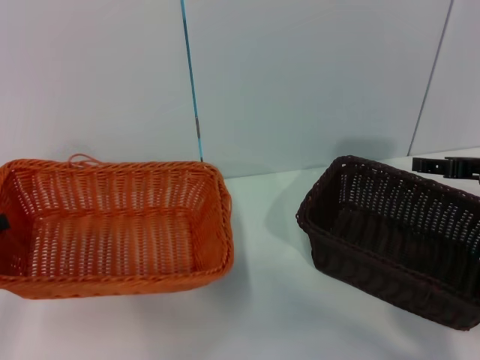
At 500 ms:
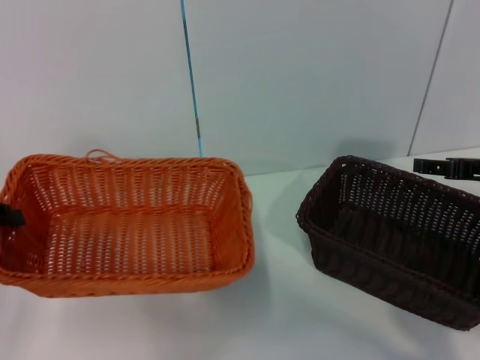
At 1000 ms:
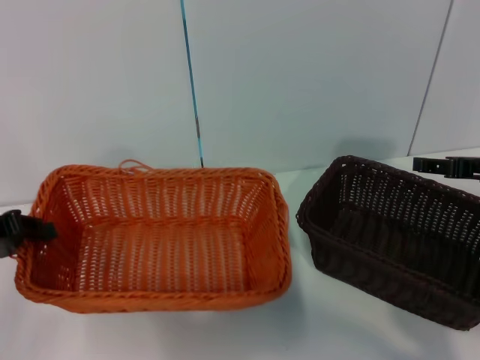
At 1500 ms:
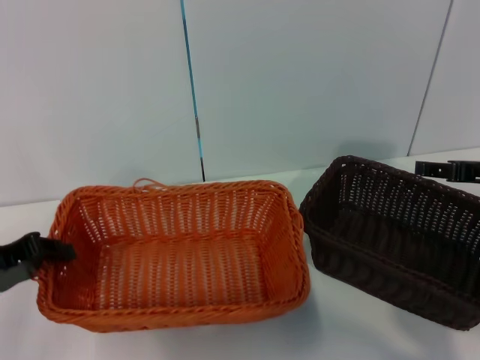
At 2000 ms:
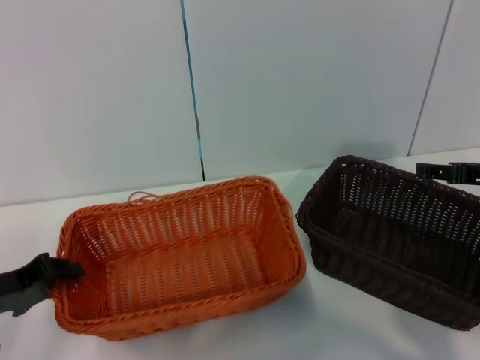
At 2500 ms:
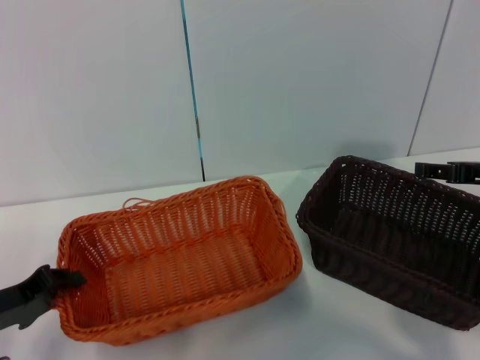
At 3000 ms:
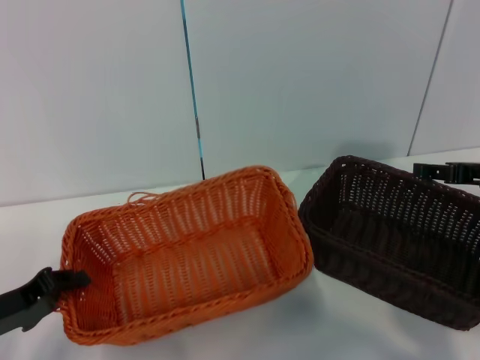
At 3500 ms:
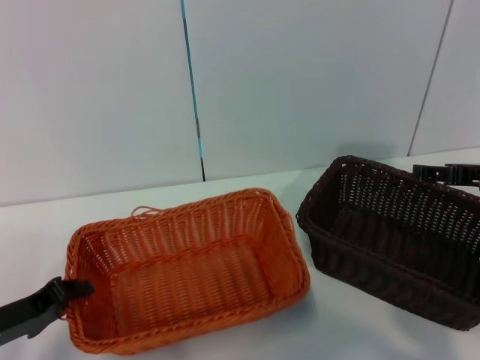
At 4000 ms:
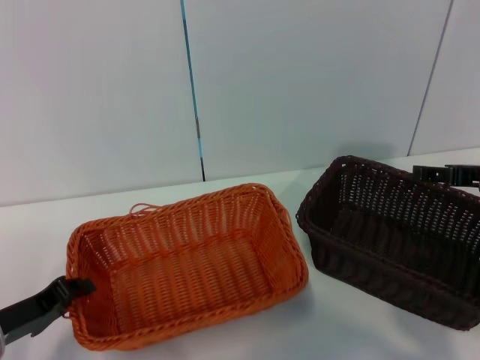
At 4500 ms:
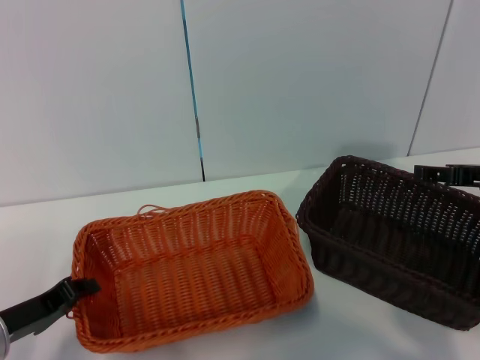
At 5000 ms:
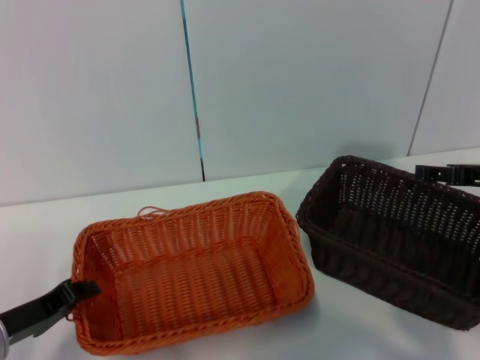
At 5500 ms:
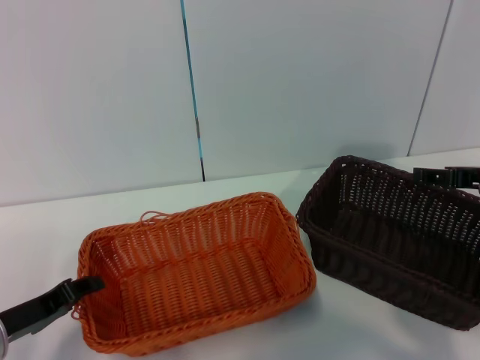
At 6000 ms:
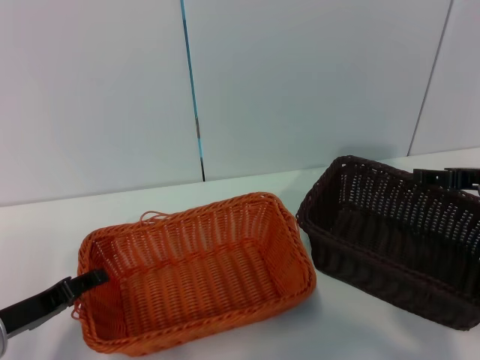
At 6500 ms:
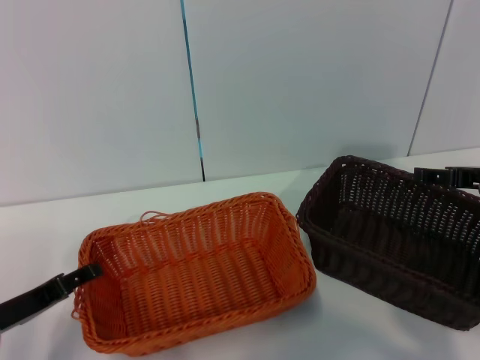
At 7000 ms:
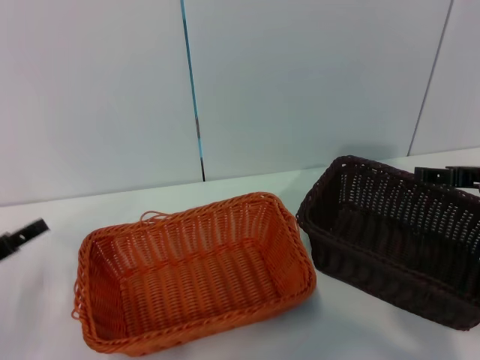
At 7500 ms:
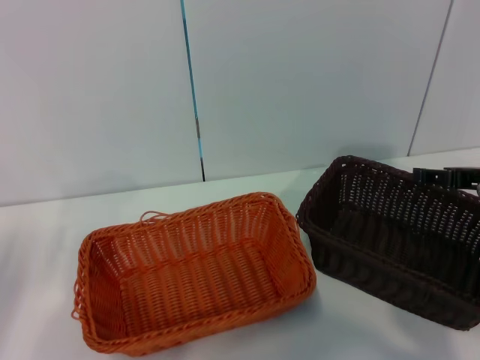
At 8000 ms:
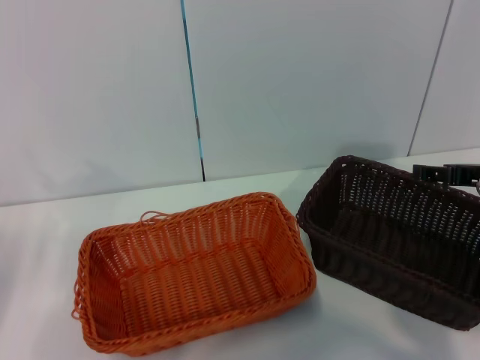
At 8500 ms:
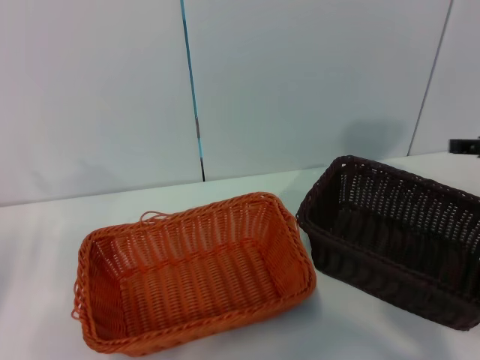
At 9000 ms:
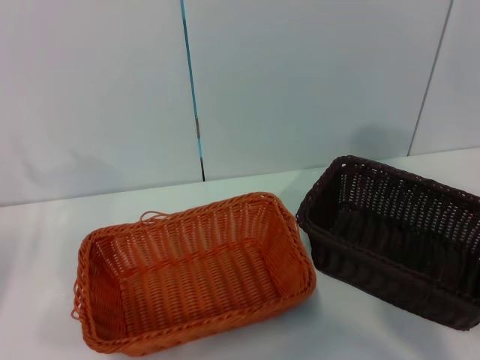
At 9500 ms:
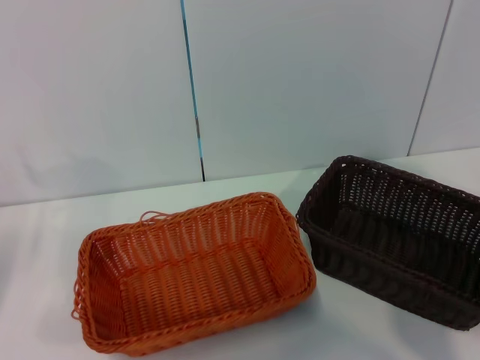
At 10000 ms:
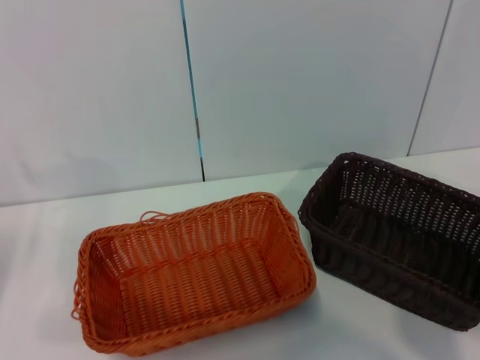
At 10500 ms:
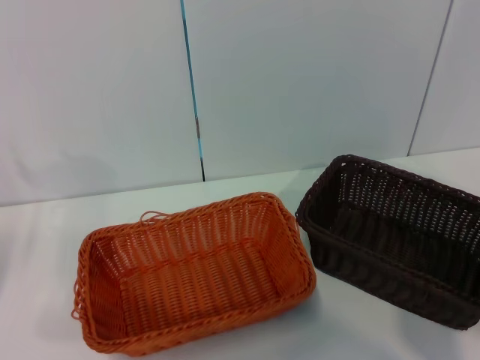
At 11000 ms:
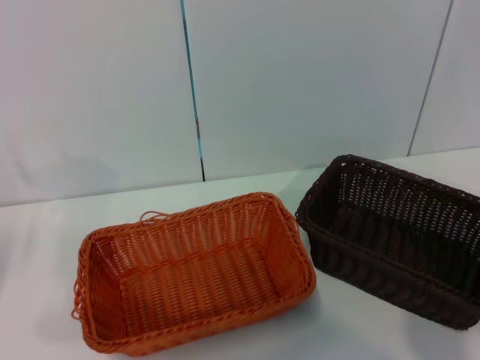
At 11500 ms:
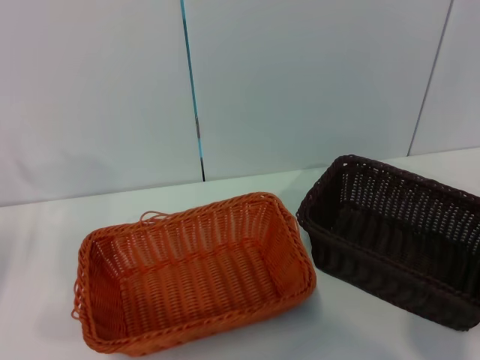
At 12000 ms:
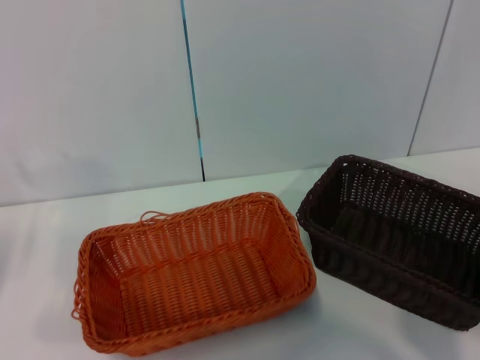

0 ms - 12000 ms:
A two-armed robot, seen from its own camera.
Step, 0 ms - 5000 ms: Place the light basket in the center of view with the left gripper.
0 ms - 2000 ms: The left gripper is displaced downward and to the right by roughly 10 cm.
2000 ms - 4000 ms: The left gripper moves about 5 cm.
4000 ms - 6000 ms: The left gripper opens its fingers.
6000 ms - 8000 ms: The left gripper is displaced to the left and upward by some 10 cm, and opens.
8000 ms - 10000 ms: The right gripper heads backward, covering roughly 5 cm.

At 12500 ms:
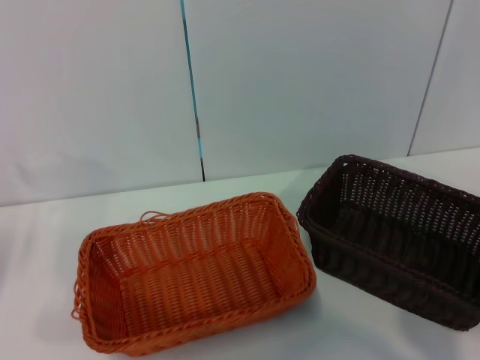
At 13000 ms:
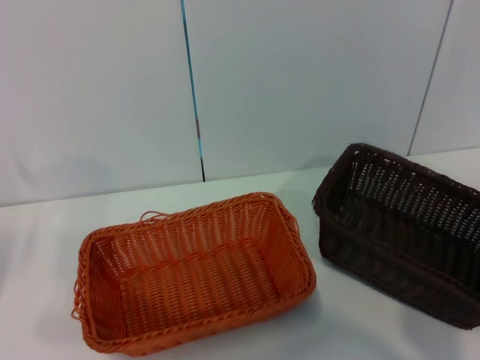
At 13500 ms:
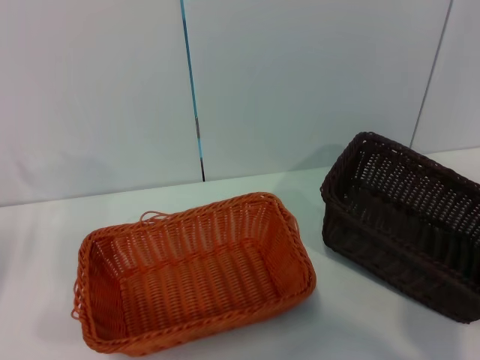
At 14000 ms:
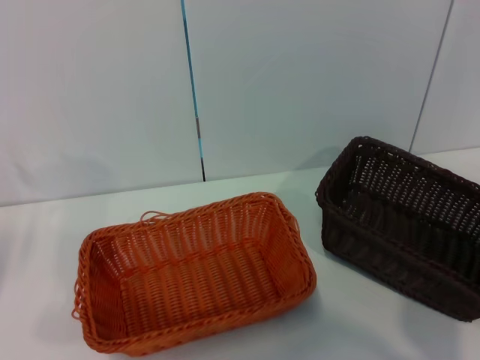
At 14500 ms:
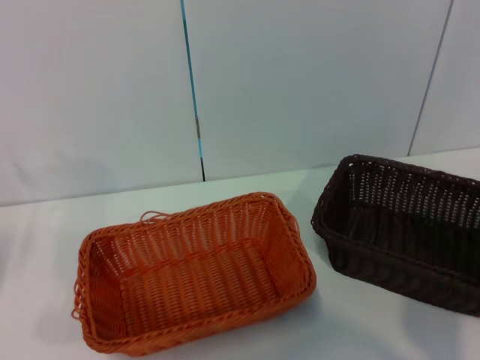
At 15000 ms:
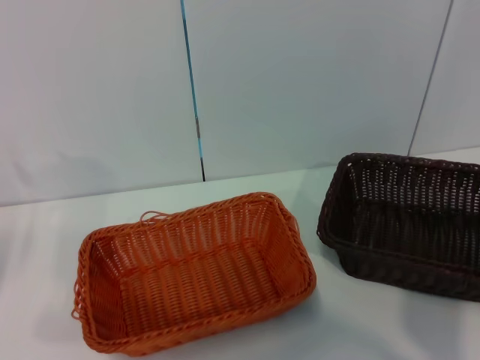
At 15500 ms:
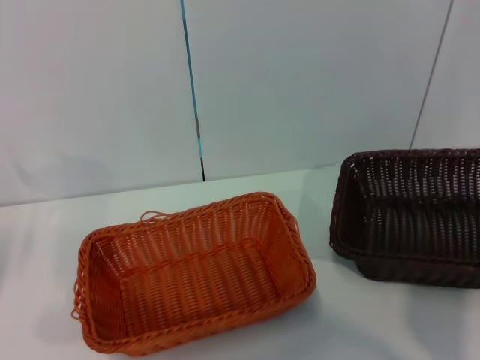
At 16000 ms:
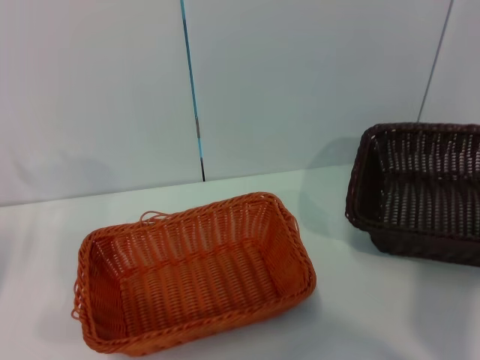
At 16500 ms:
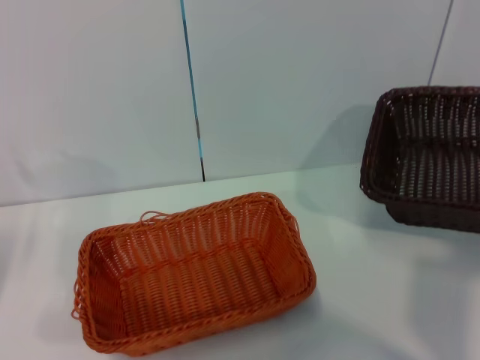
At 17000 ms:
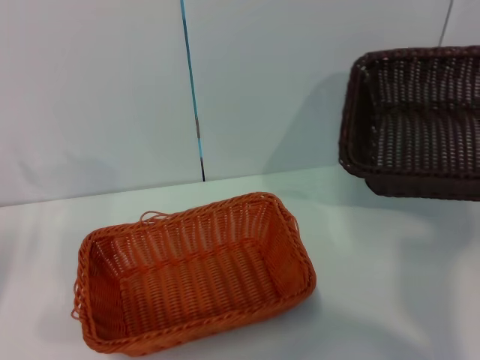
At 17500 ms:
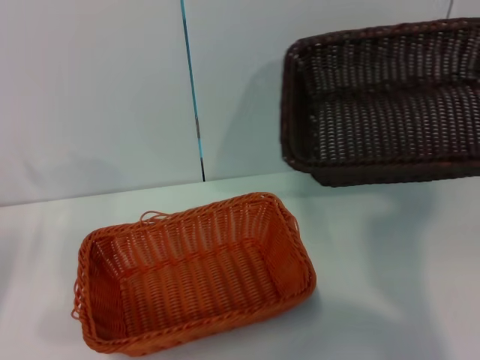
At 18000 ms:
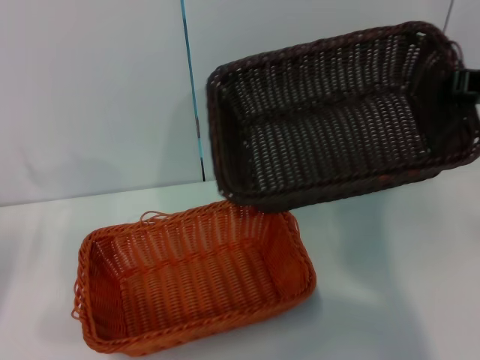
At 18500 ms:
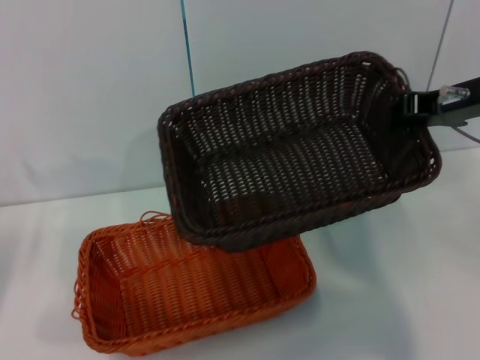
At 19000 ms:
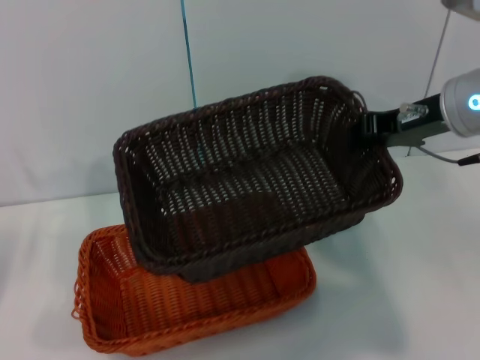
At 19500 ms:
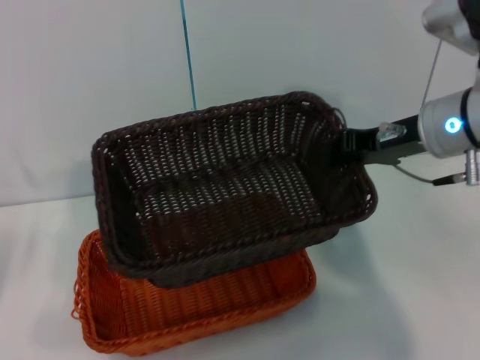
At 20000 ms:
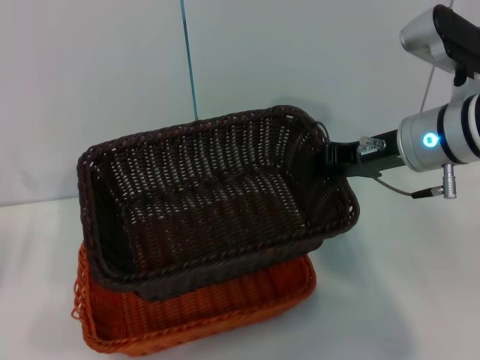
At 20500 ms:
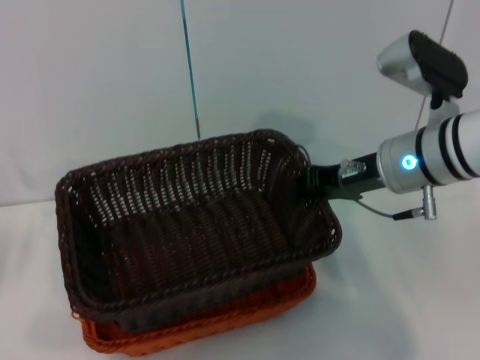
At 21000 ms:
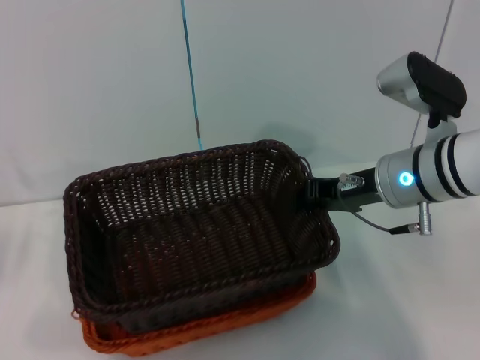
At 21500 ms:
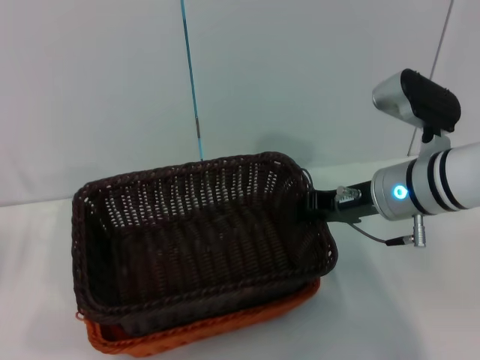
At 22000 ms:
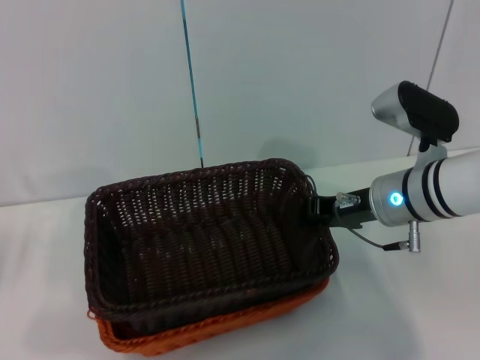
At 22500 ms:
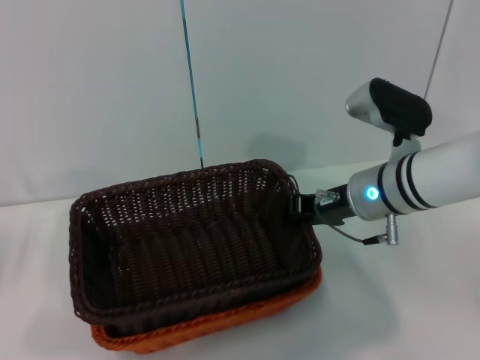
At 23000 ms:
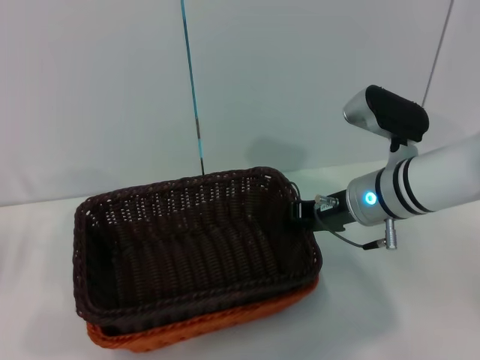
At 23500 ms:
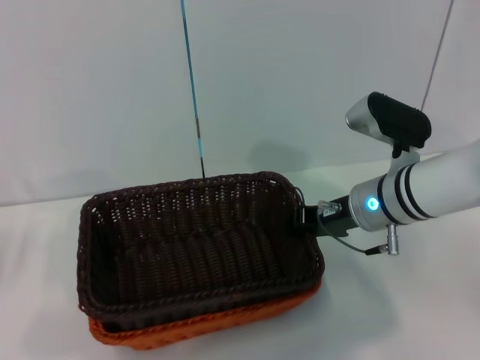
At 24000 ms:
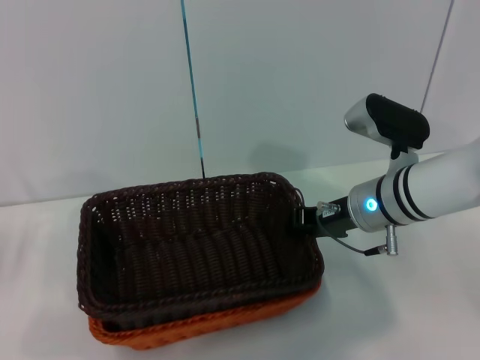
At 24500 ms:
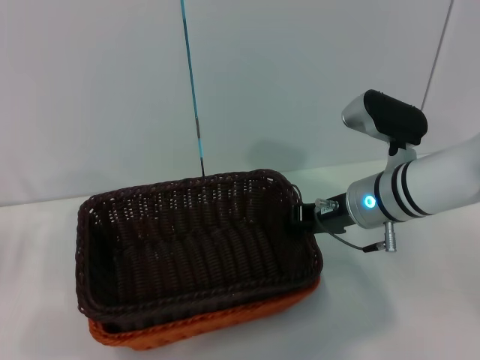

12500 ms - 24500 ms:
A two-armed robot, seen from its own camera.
12500 ms - 14500 ms: The right gripper closes.
14500 ms - 16500 ms: The right gripper travels upward by about 10 cm.
16500 ms - 18500 ms: The right gripper shifts approximately 20 cm to the left and forward.
18500 ms - 20500 ms: The right gripper goes approximately 10 cm downward and to the left.
20500 ms - 22500 ms: The right gripper moves downward, some 5 cm.
22500 ms - 24500 ms: There are only small adjustments of the grippers.

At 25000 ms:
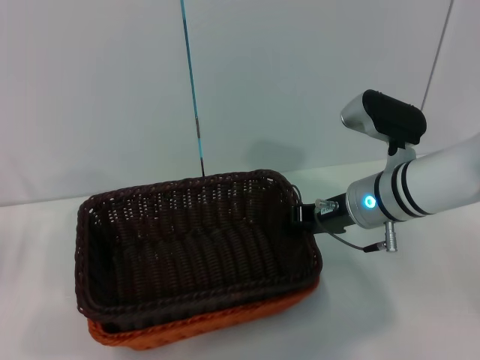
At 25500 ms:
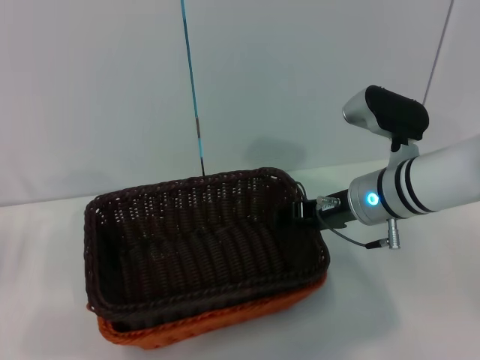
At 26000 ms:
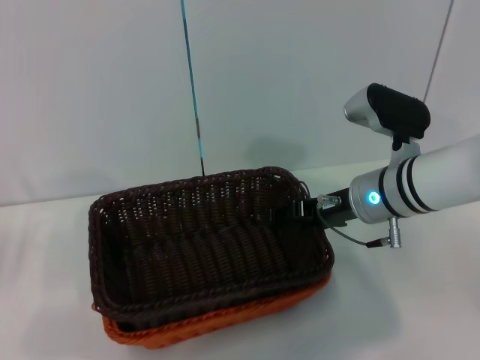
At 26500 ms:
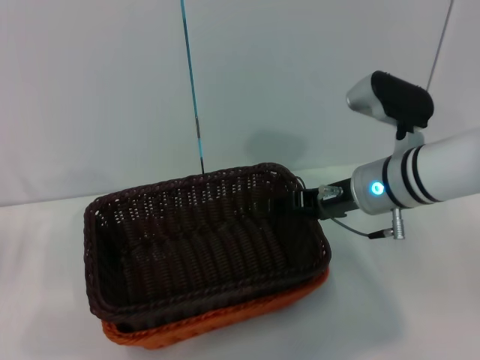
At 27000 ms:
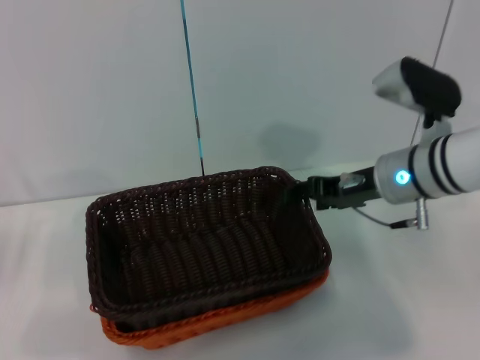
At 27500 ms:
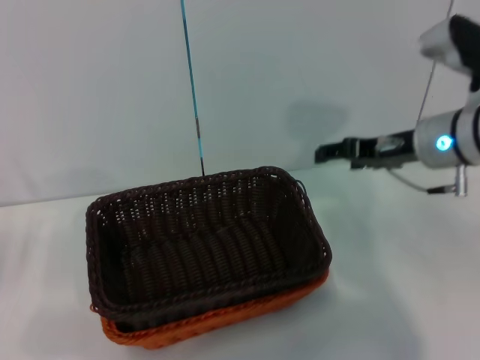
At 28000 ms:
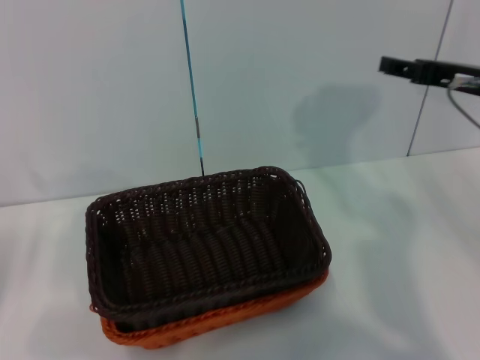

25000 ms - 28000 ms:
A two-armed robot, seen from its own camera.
25000 ms - 26500 ms: The right gripper opens up.
26500 ms - 28000 ms: The right gripper heads to the right and upward, covering approximately 15 cm.
